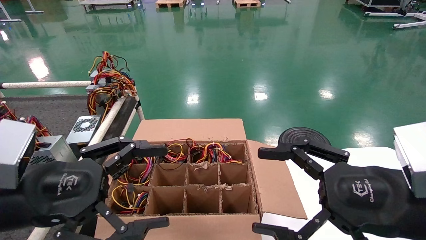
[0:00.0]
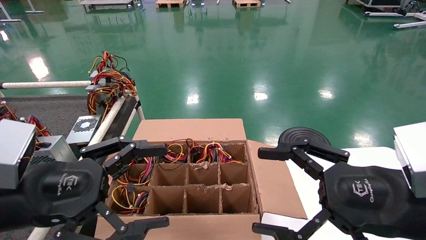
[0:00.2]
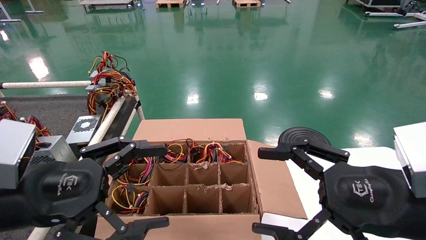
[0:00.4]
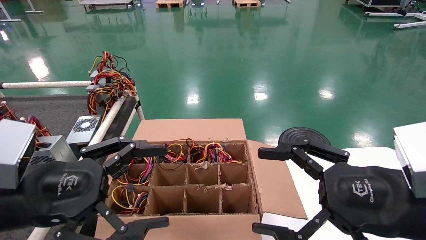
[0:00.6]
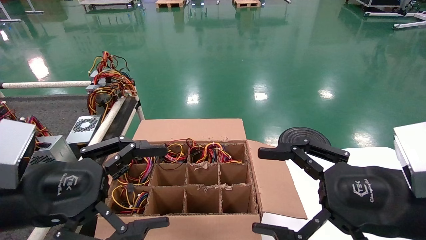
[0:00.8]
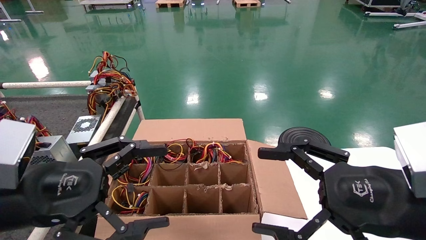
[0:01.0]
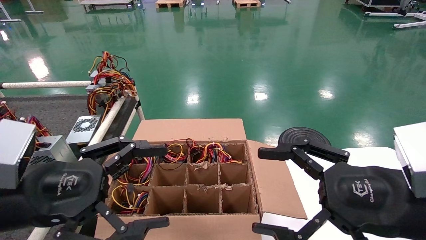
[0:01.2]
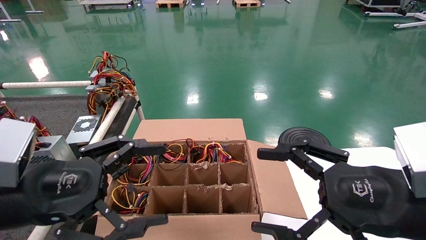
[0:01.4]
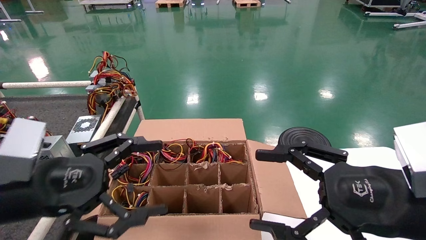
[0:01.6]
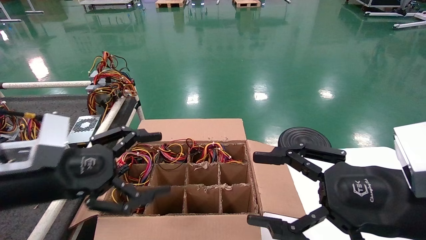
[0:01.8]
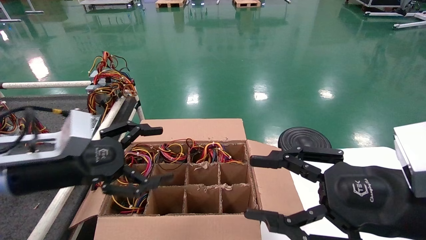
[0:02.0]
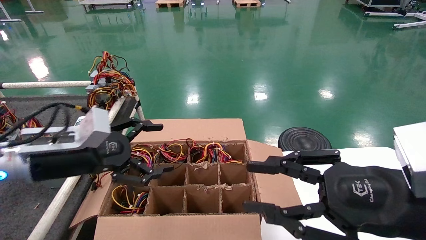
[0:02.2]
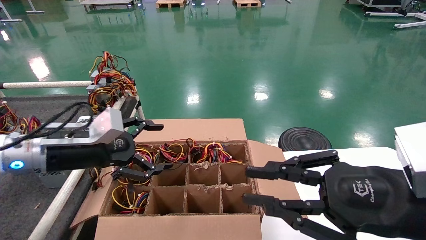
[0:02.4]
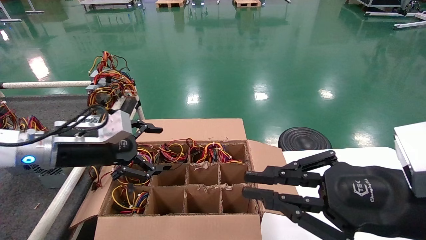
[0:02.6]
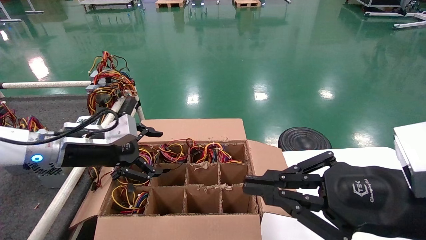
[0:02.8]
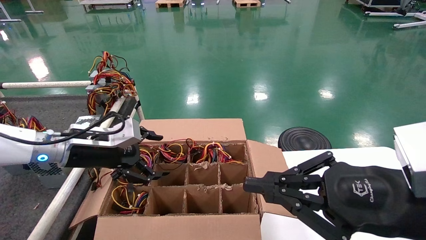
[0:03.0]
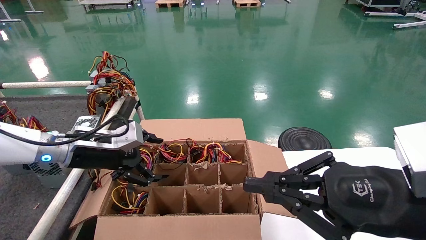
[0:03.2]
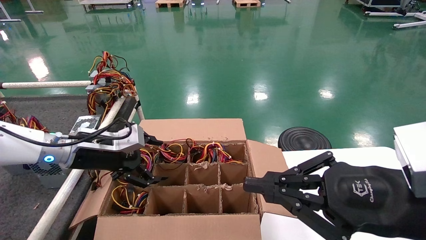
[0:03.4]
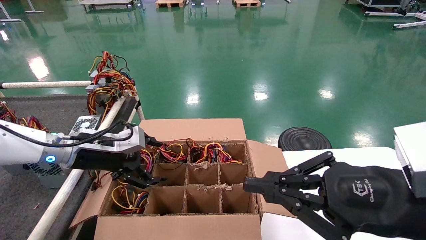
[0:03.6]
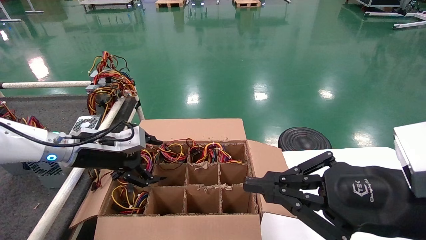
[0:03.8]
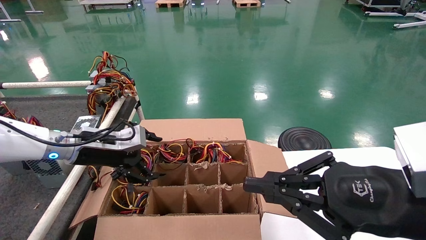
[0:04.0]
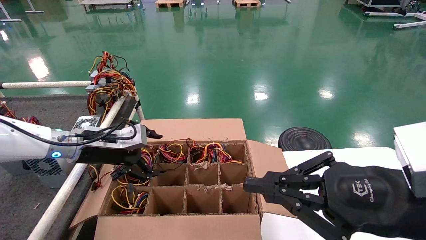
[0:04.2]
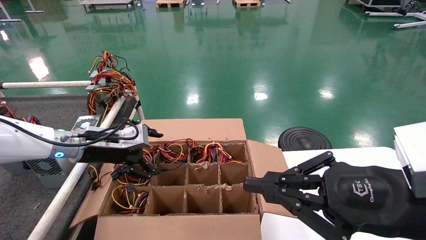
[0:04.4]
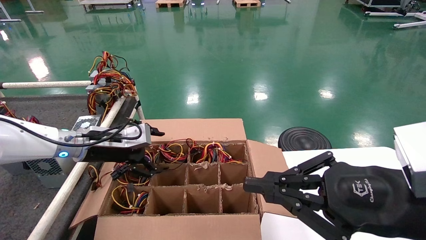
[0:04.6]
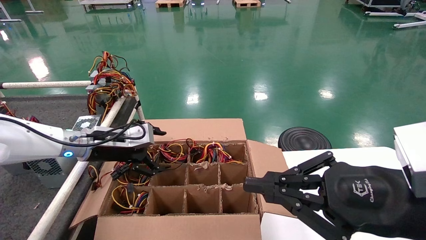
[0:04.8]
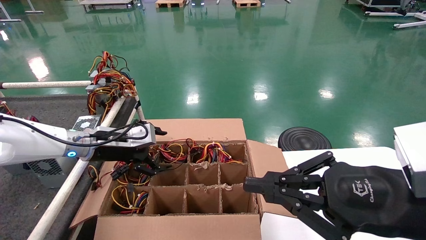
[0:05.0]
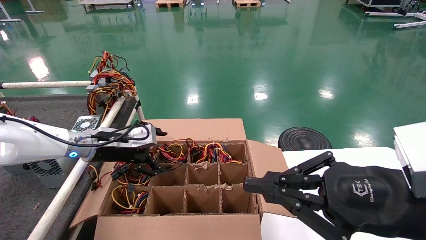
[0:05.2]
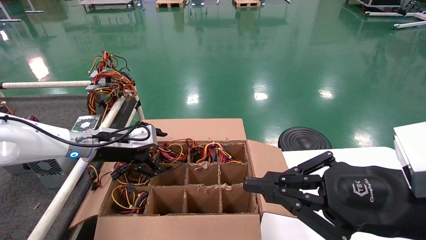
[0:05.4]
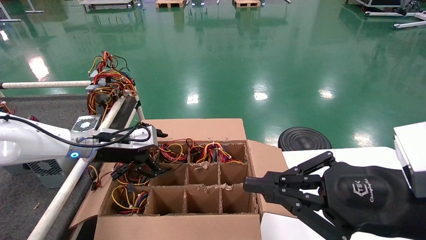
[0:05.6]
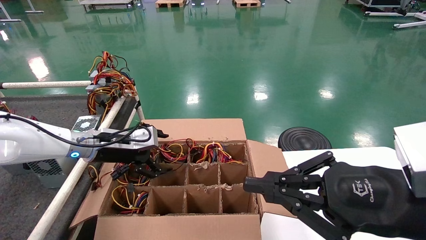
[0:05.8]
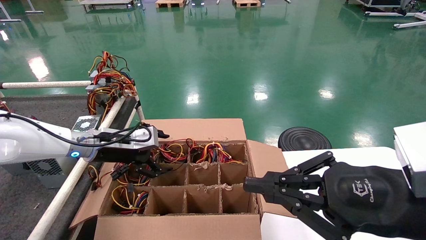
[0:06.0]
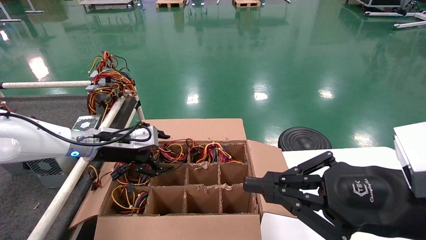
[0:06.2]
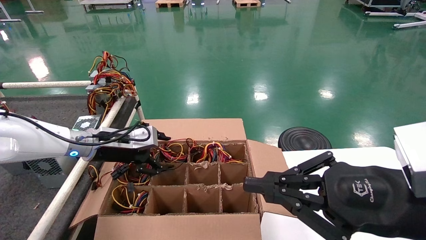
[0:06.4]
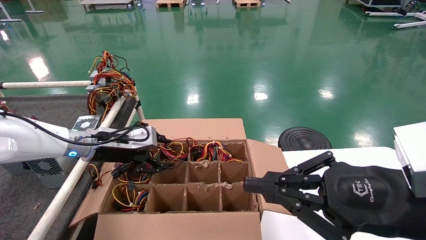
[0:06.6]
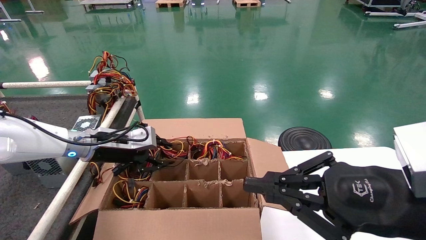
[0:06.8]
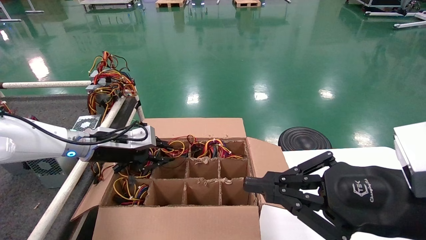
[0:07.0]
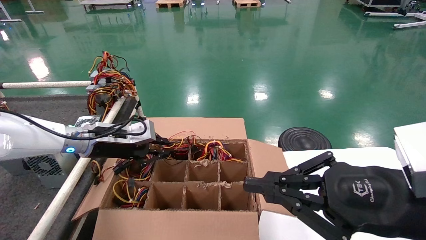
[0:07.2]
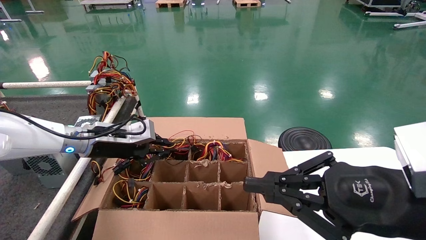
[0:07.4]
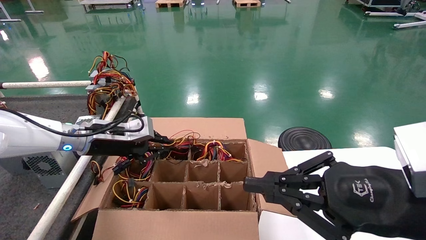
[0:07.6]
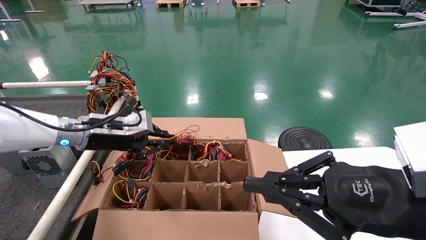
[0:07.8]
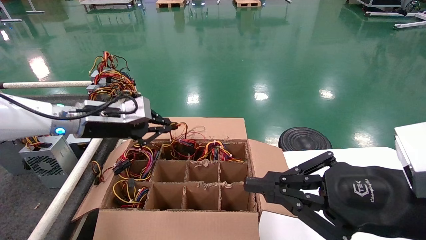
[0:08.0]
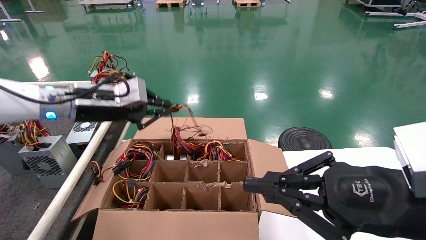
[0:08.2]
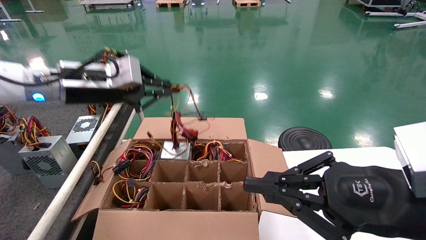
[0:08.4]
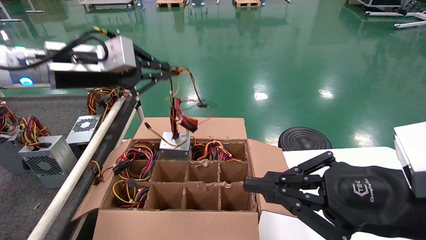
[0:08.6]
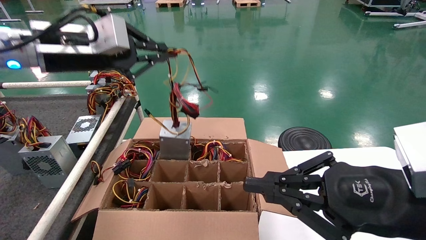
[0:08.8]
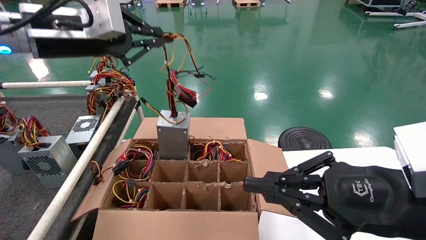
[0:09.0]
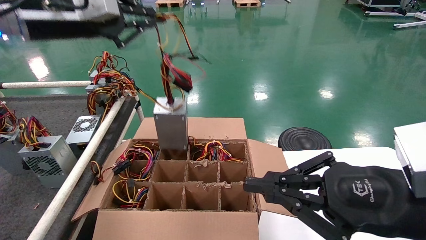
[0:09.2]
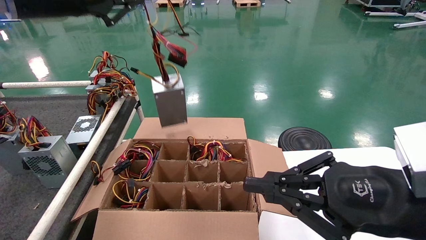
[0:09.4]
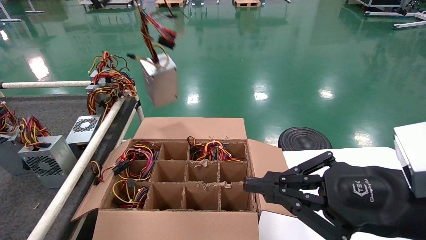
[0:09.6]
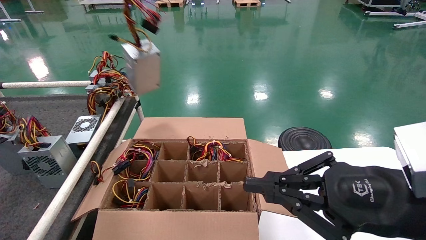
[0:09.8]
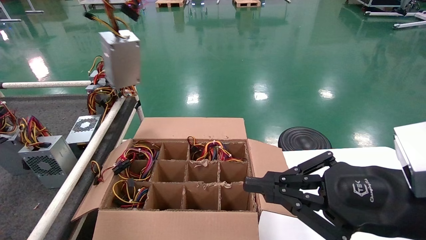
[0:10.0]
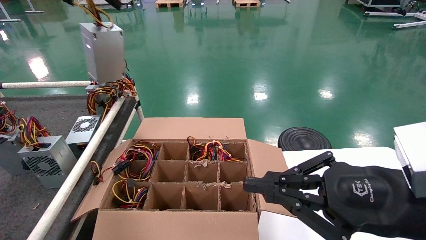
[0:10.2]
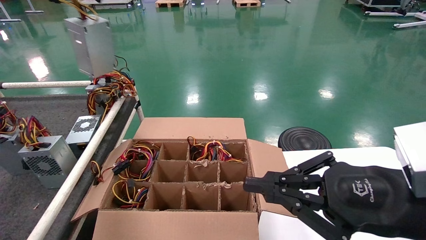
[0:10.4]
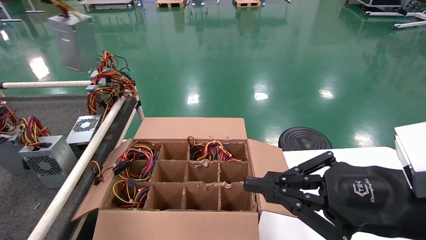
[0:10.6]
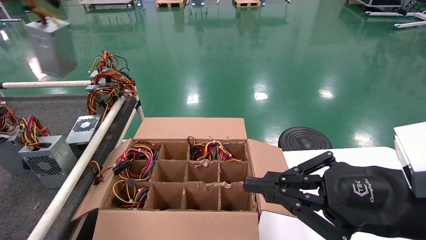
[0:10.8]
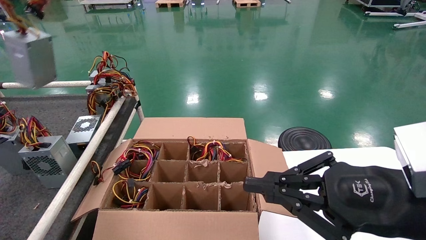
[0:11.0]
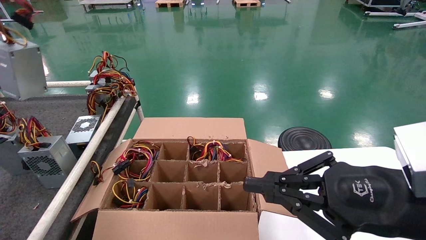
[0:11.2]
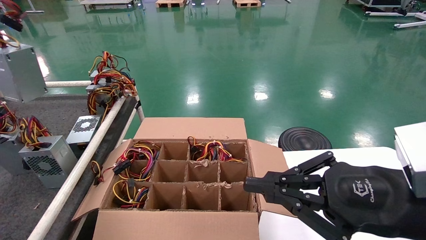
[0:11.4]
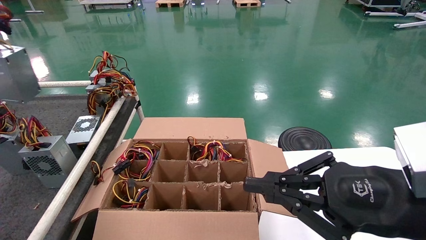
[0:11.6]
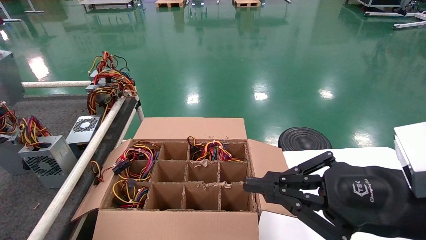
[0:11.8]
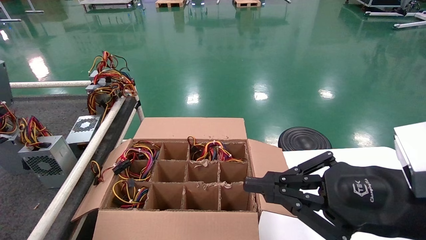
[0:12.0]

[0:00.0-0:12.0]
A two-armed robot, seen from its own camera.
Step, 0:01.8 to 0:07.8: Grab and lift the power supply from the large box.
0:00.0 to 0:01.6: The grippers move only a little.
0:01.6 to 0:03.0: The right gripper closes up. Meanwhile the left gripper is displaced forward by approximately 15 cm.
0:03.0 to 0:06.0: The grippers move only a little.
0:06.0 to 0:07.6: The left gripper closes its fingers.
0:07.6 to 0:09.0: The left gripper shifts about 20 cm upward.
0:09.0 to 0:10.4: The left gripper goes approximately 20 cm upward and to the left.
0:10.4 to 0:12.0: The left gripper moves to the left and downward, about 20 cm.

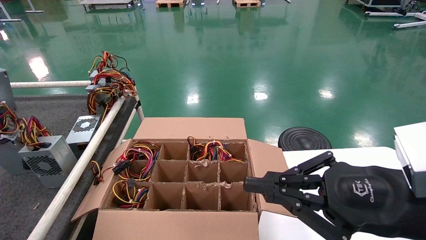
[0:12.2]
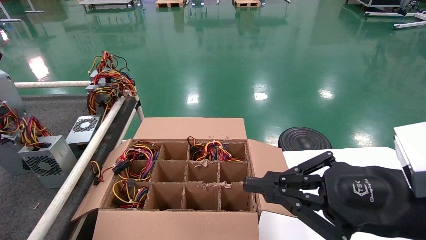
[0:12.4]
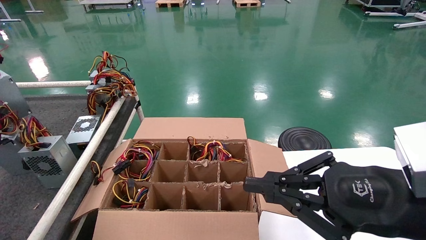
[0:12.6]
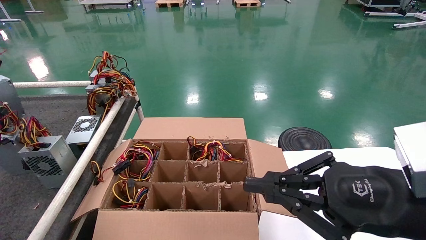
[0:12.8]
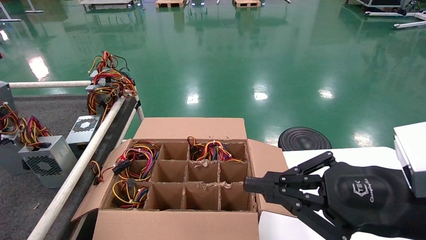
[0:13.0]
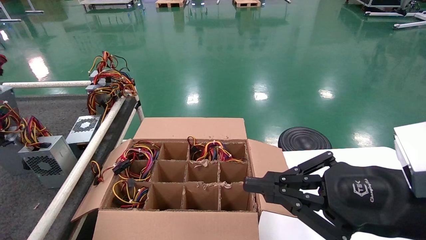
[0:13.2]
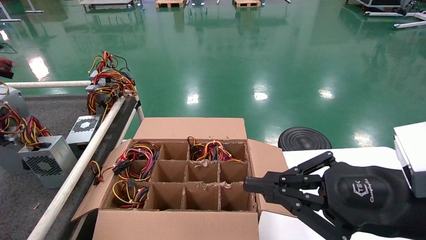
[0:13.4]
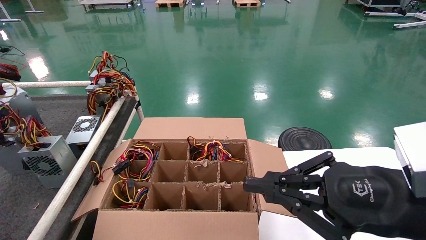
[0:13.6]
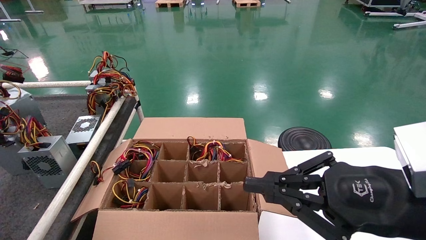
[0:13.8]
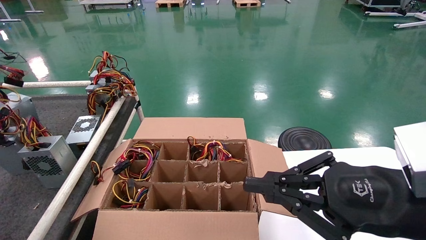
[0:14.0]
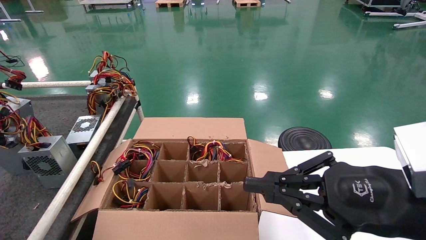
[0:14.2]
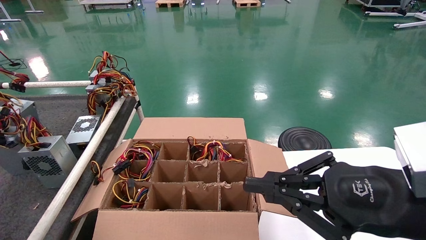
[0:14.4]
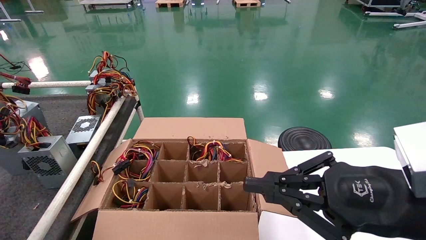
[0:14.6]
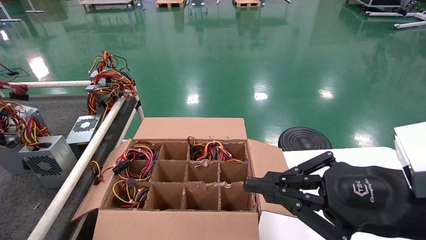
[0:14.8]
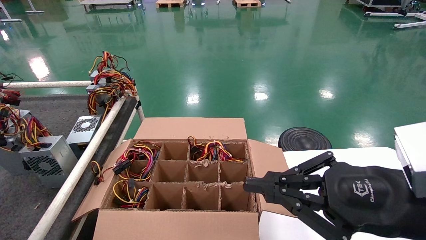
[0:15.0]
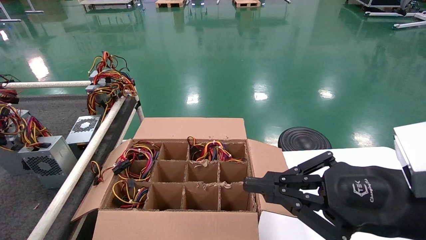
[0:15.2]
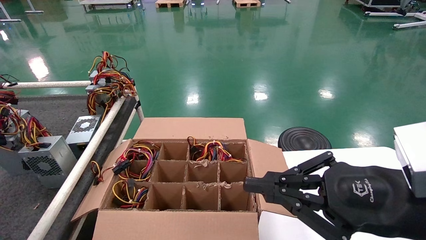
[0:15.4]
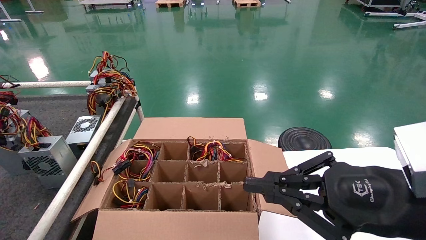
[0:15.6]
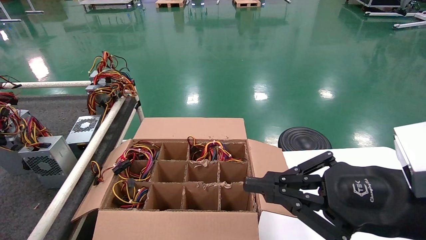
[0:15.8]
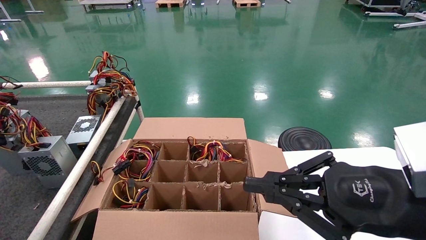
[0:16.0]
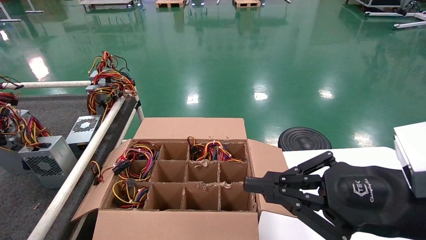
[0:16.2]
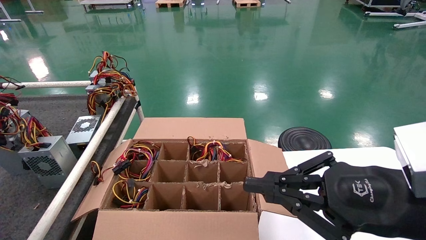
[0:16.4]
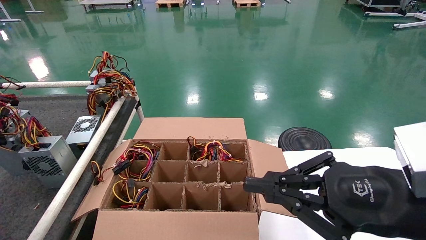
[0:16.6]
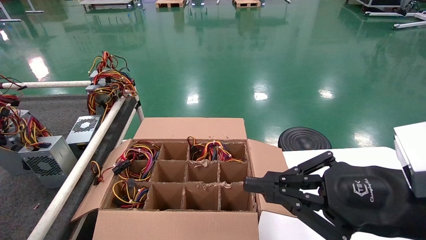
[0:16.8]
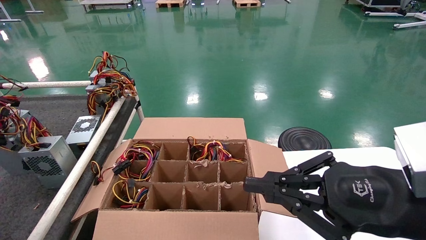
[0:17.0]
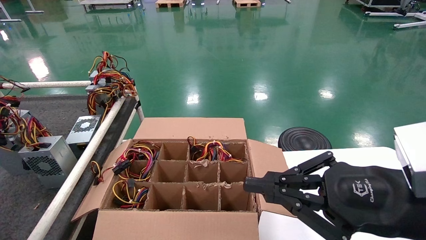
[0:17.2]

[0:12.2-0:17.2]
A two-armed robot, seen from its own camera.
0:12.2 to 0:13.8: The left gripper is displaced downward by about 5 cm.
0:13.8 to 0:15.6: The left gripper travels downward by about 10 cm.
